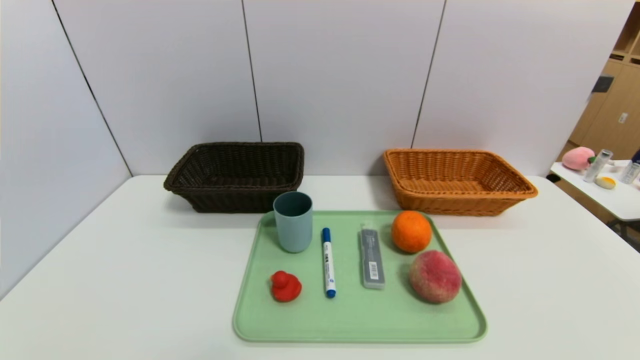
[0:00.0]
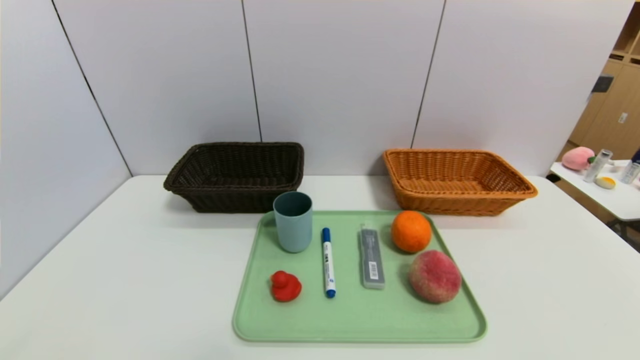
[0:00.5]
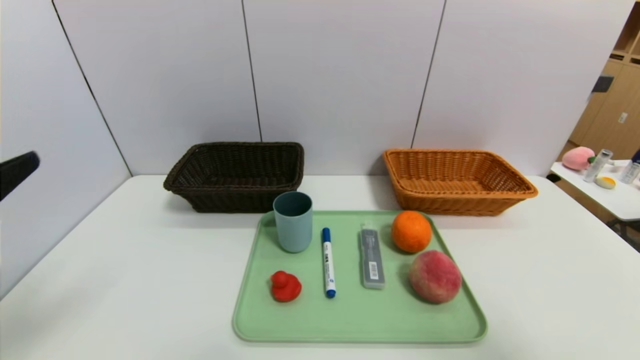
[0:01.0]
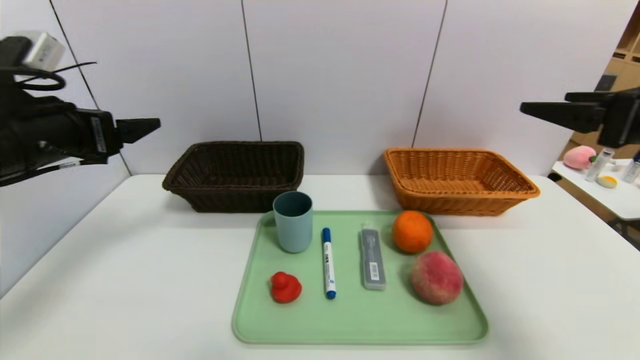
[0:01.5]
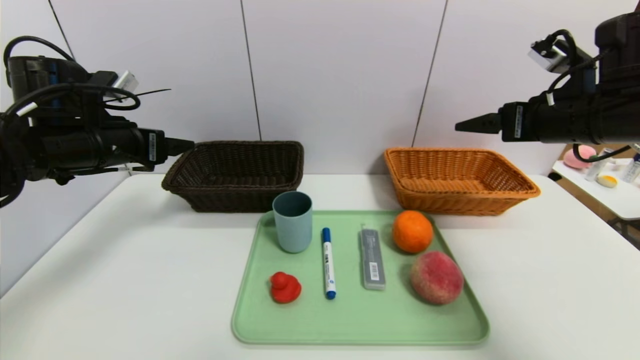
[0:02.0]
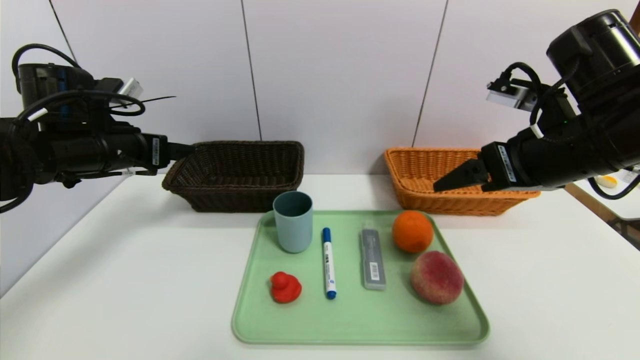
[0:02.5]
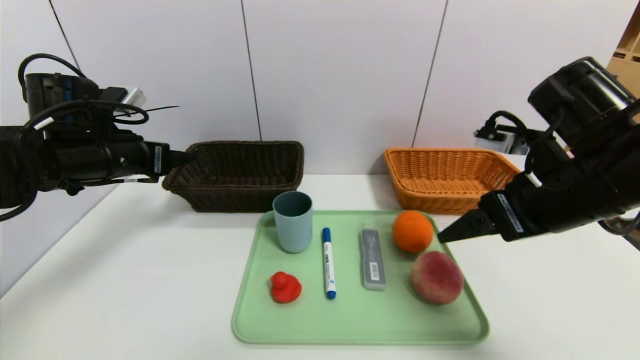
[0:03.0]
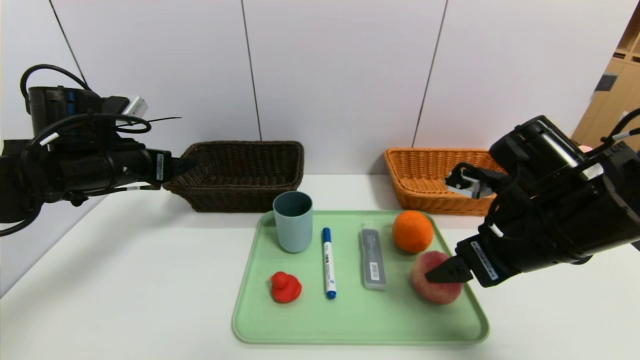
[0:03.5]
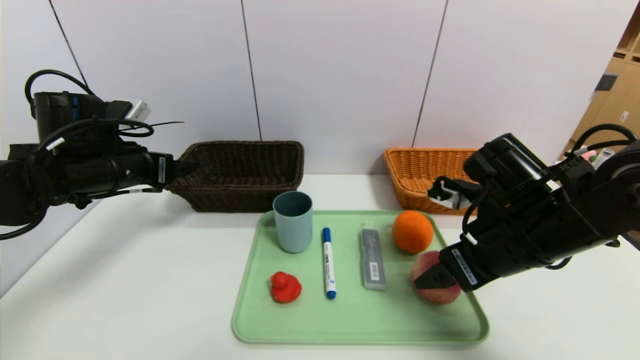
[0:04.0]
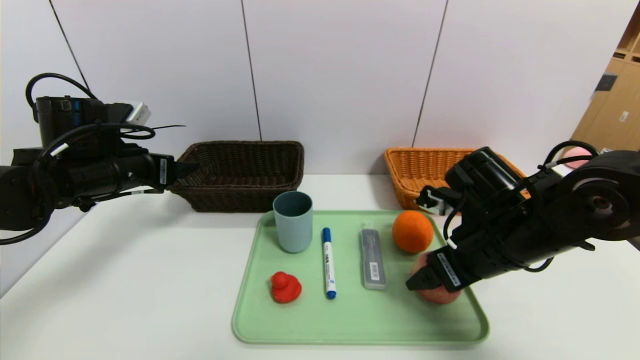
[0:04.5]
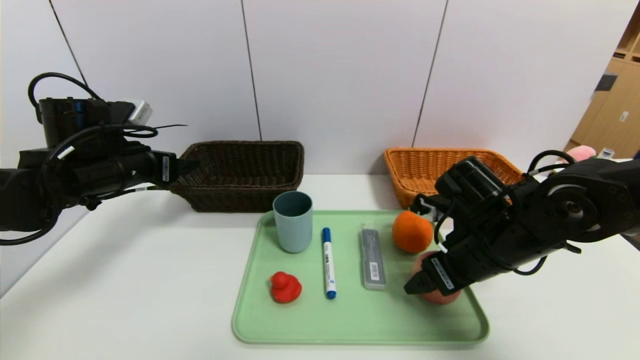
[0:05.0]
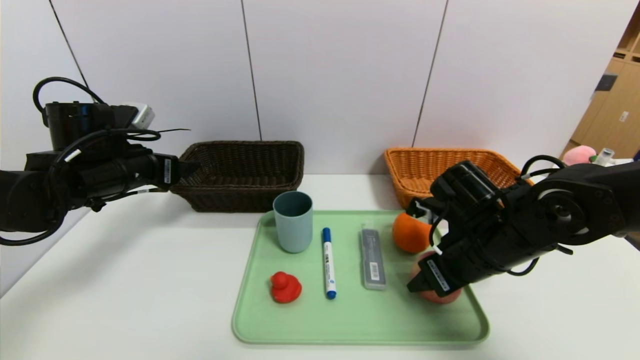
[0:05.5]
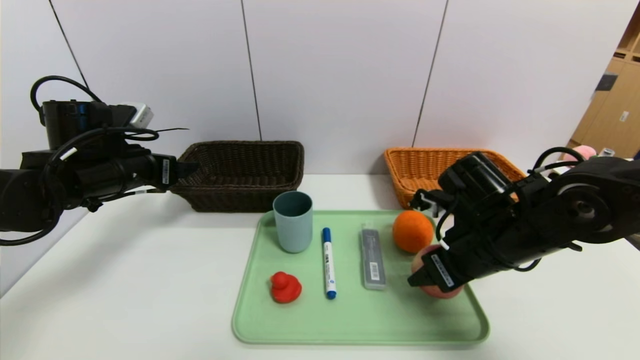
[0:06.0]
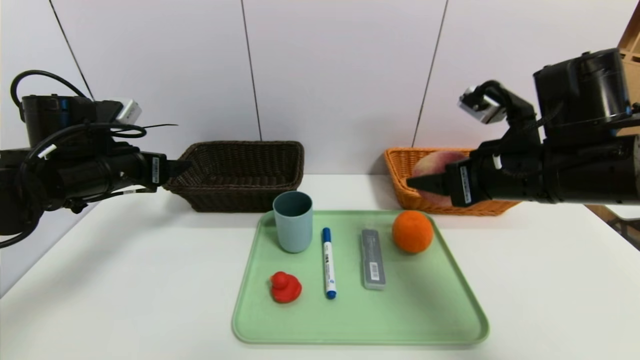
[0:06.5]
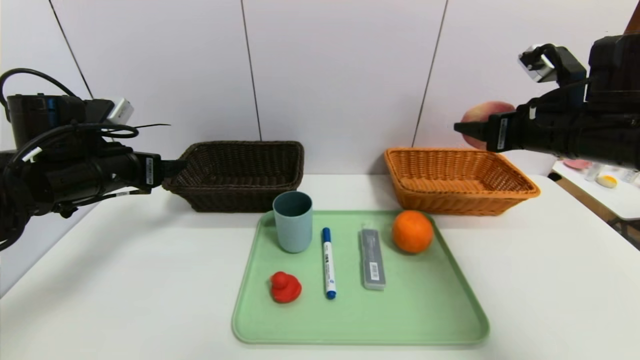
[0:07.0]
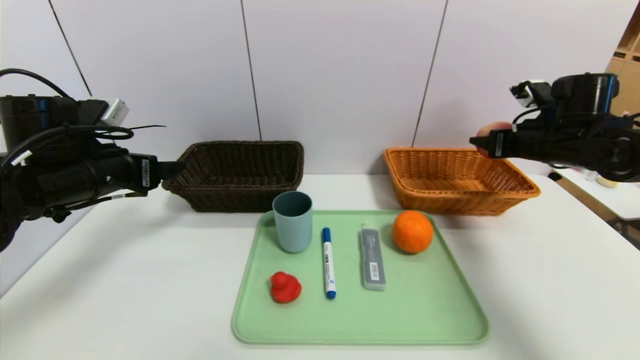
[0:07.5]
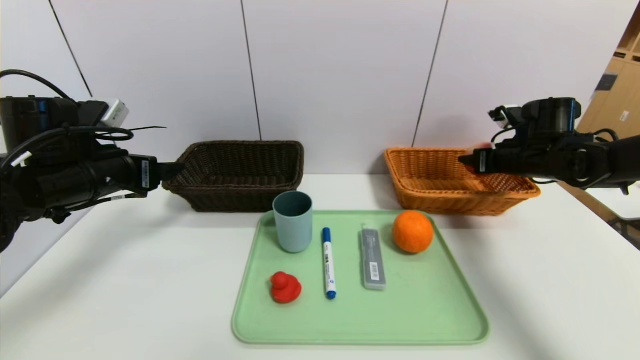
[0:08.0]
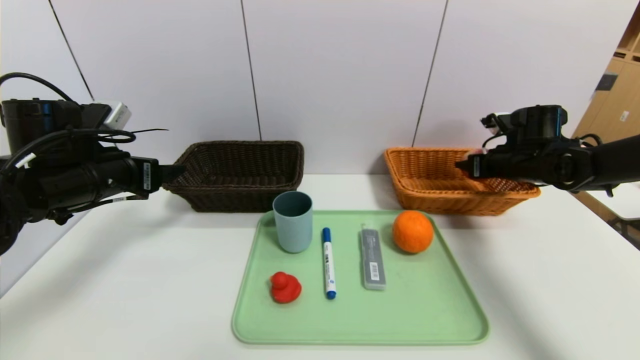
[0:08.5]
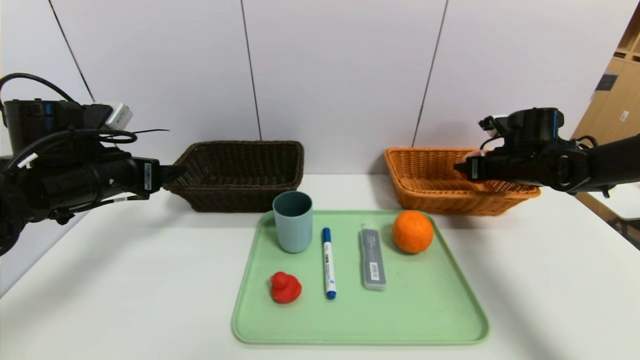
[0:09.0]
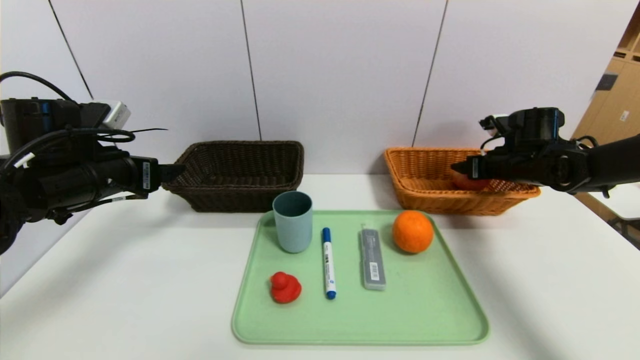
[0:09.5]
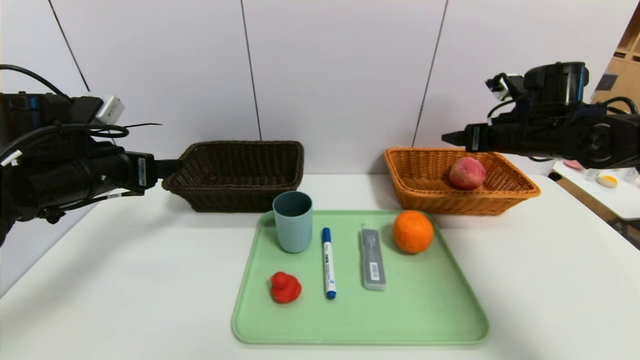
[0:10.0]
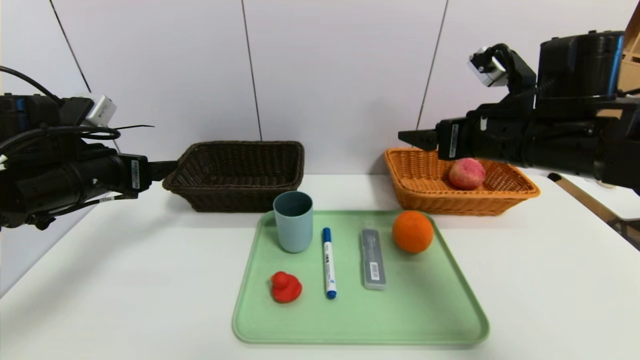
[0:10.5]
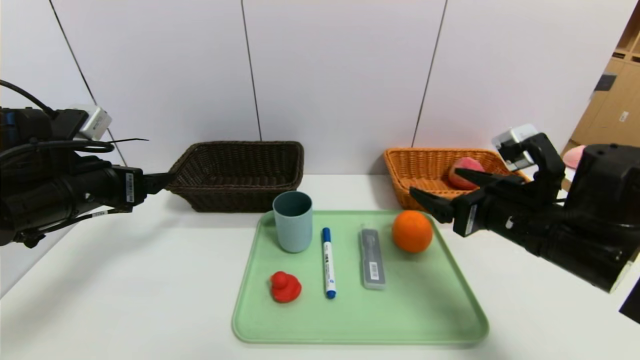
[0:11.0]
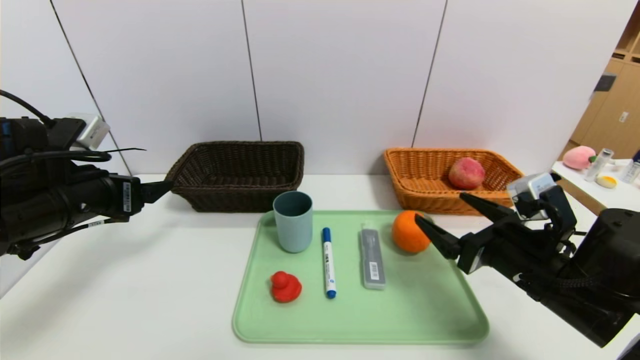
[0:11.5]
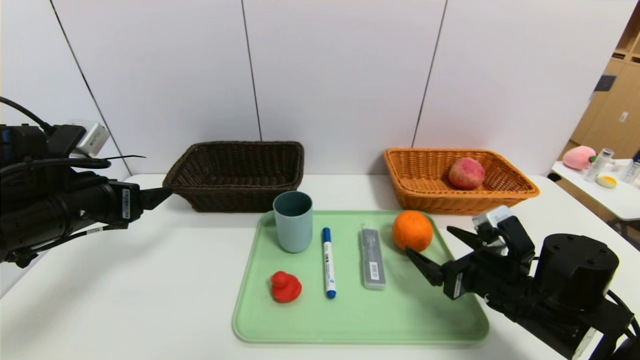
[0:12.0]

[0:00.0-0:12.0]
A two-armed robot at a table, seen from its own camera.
Task of the whole recording: place the food in the right basket with the right gripper, and place the non food items in the left basket with the left gripper.
Step, 0:00.0 to 0:09.5: Grasp the peach and put it in the right basket.
0:00.0 to 0:02.0: Both grippers move forward and upward, some 40 cm.
0:02.0 to 0:04.0: The right gripper travels downward, to the left and backward by approximately 15 cm.
0:04.0 to 0:06.0: The right gripper closes up.
0:06.0 to 0:08.0: The right gripper shifts some 20 cm forward and to the right.
0:08.0 to 0:10.0: The right gripper shifts some 5 cm upward, and opens its fingers.
0:10.0 to 0:12.0: The right gripper heads backward, downward and to the left, covering approximately 25 cm.

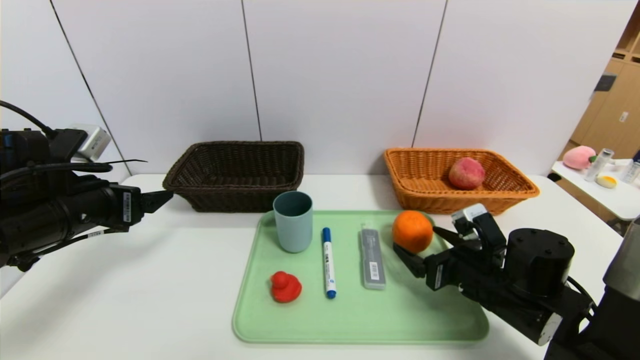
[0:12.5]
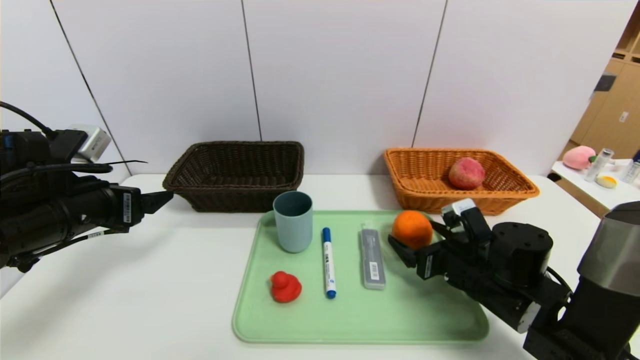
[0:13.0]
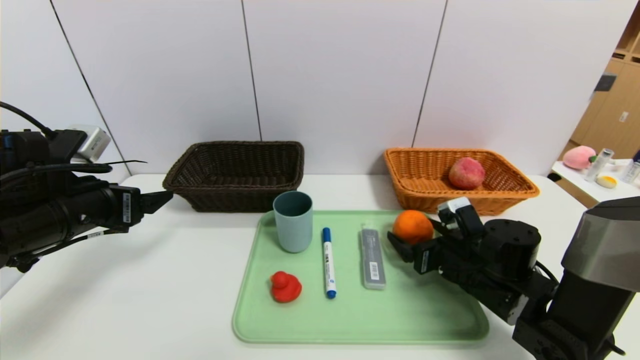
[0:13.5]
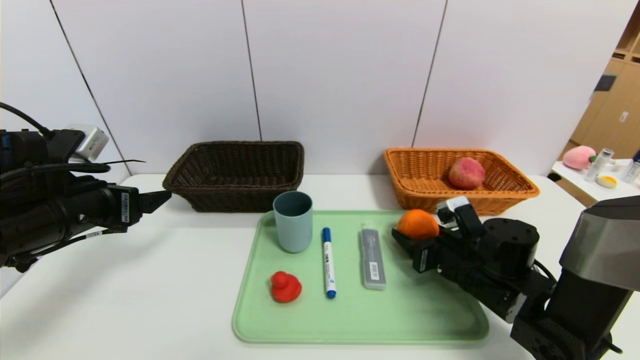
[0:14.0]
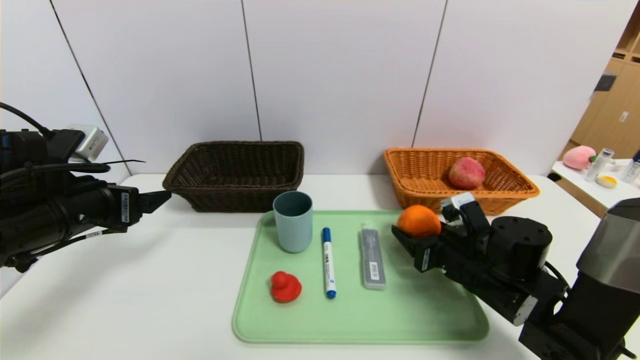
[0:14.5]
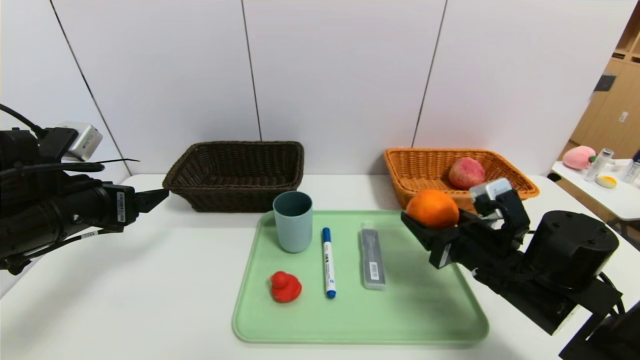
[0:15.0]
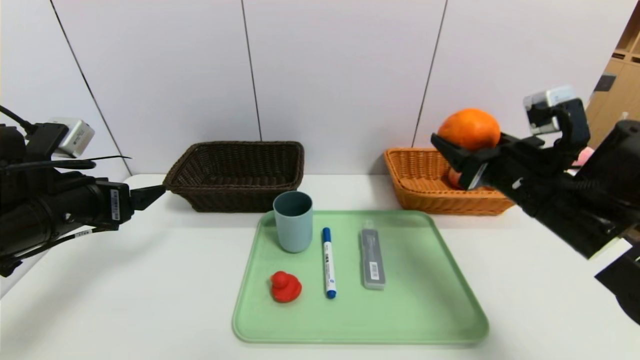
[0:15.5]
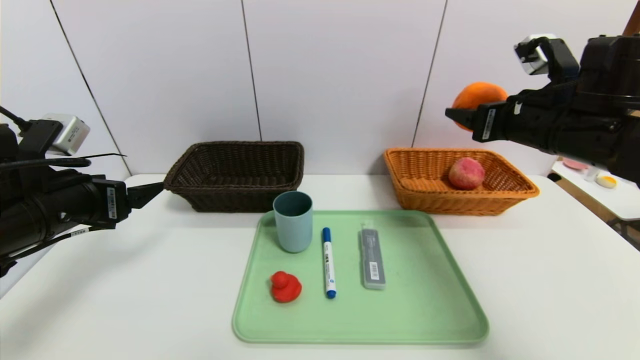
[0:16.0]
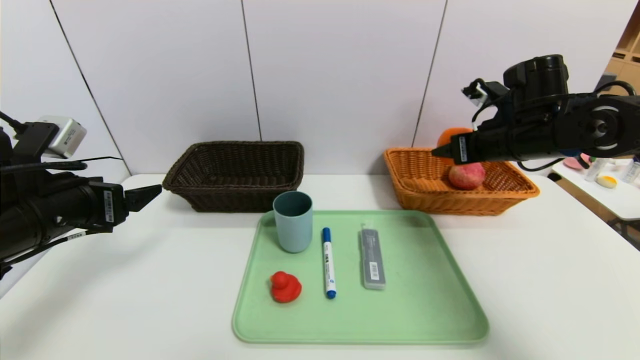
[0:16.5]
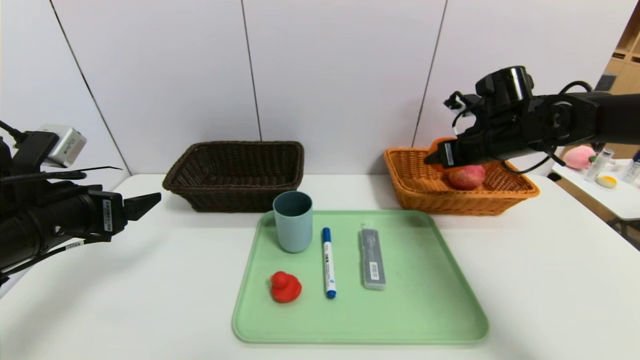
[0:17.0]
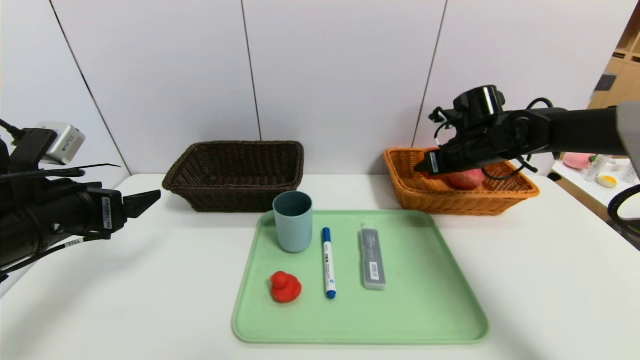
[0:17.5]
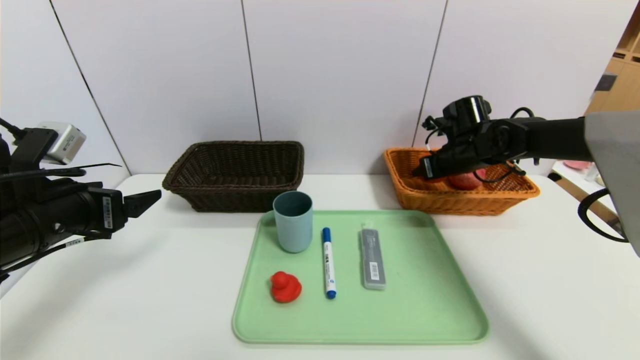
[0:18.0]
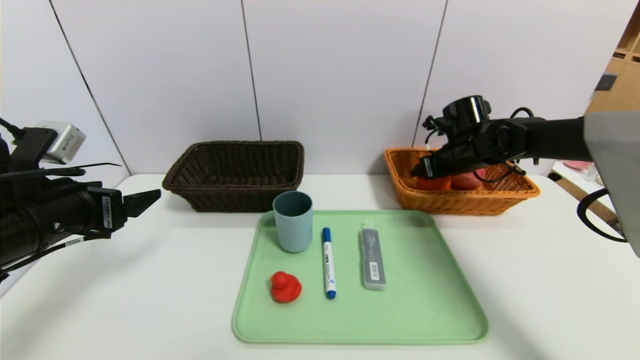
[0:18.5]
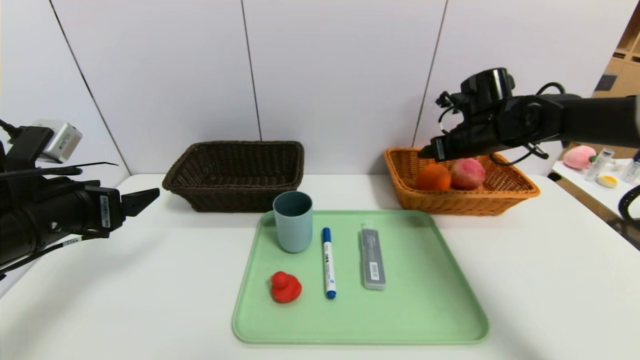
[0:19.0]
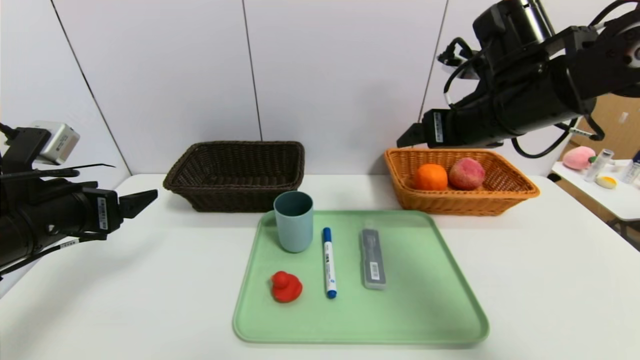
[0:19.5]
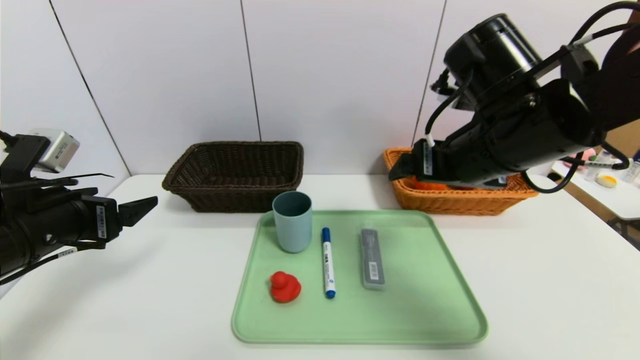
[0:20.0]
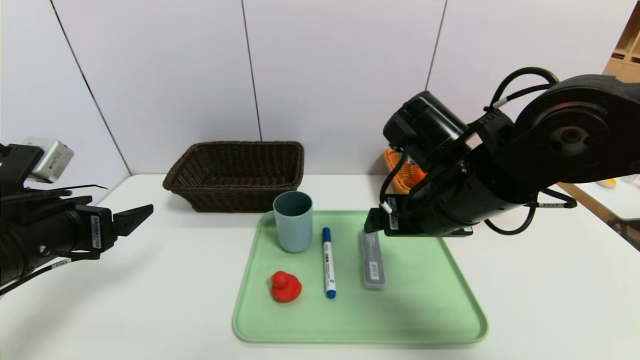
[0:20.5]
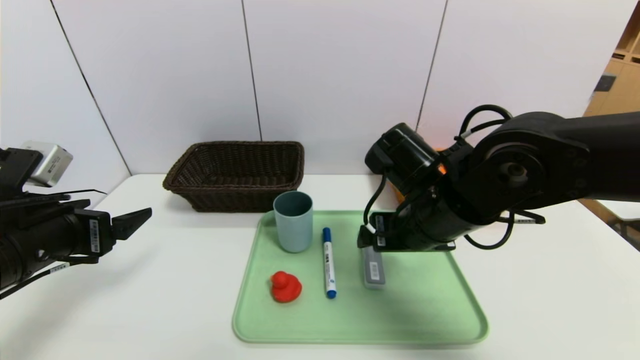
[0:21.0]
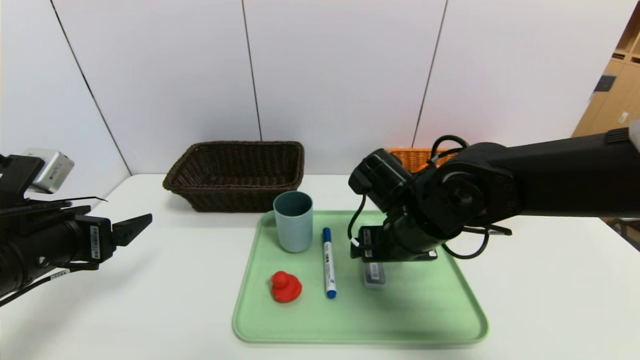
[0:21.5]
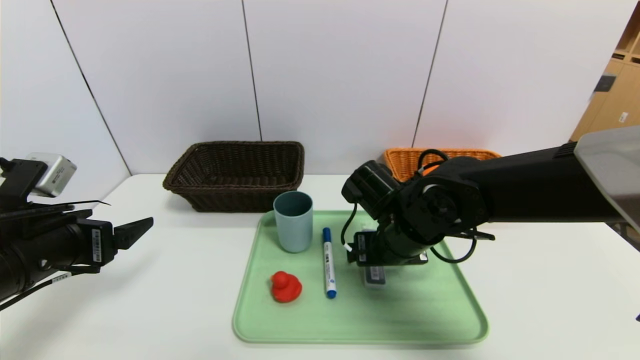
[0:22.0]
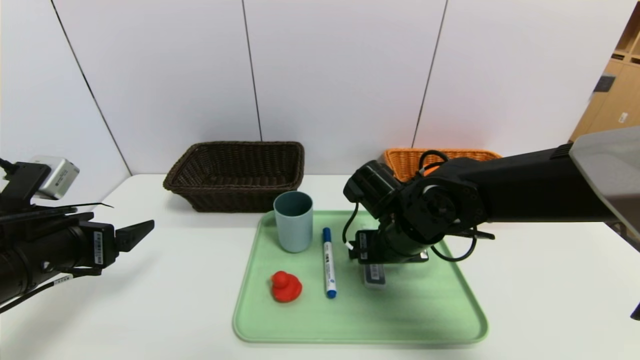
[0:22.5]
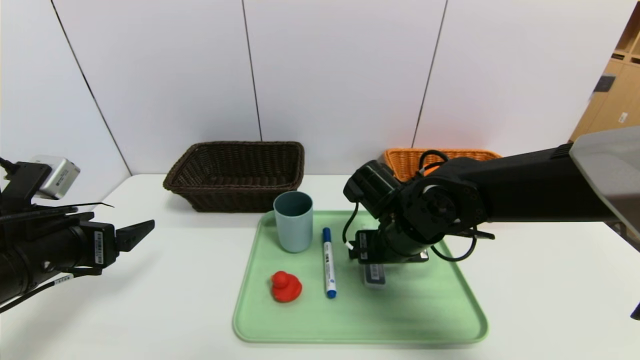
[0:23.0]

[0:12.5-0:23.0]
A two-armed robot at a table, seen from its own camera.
Task of the whole recording: place the food in the right basket with the right gripper, and place the non food items in the left basket with the left gripper.
Step, 0:12.5 to 0:18.5: Grasp the orange and put it in the right basket.
0:12.5 to 0:14.5: The right gripper closes its fingers.
0:14.5 to 0:16.5: The right gripper heads upward and forward, covering about 20 cm.
0:16.5 to 0:19.0: The right gripper travels forward by approximately 5 cm, and opens up.
0:19.0 to 0:21.0: The right gripper is displaced backward and to the left by some 25 cm.
0:21.0 to 0:23.0: The right gripper moves downward, some 5 cm.
